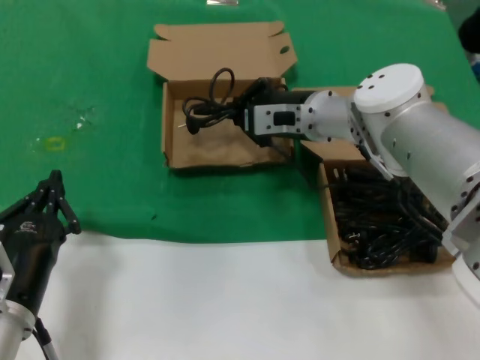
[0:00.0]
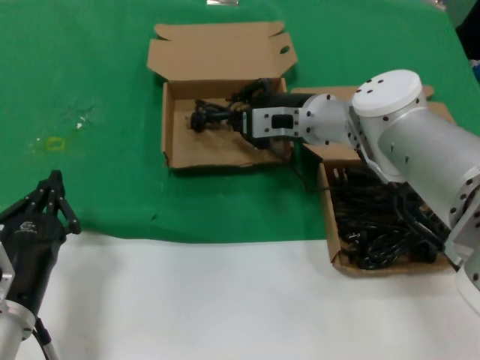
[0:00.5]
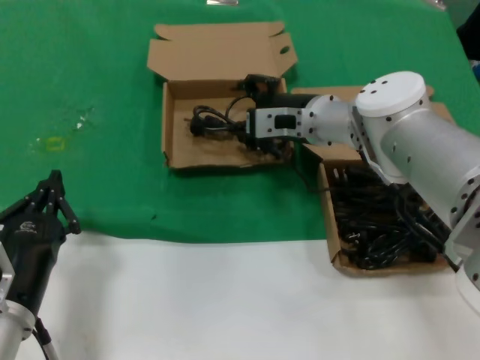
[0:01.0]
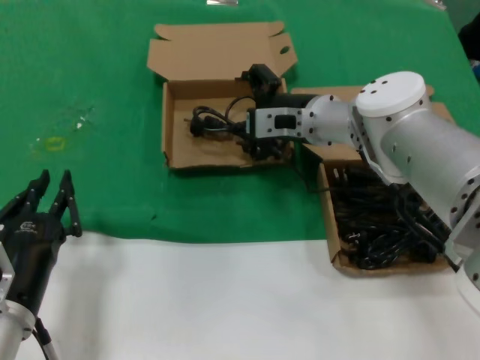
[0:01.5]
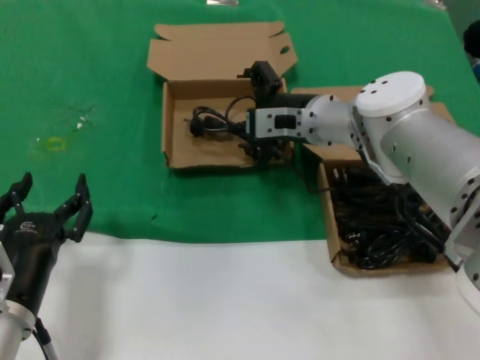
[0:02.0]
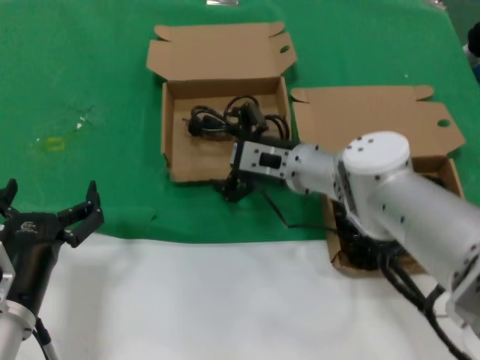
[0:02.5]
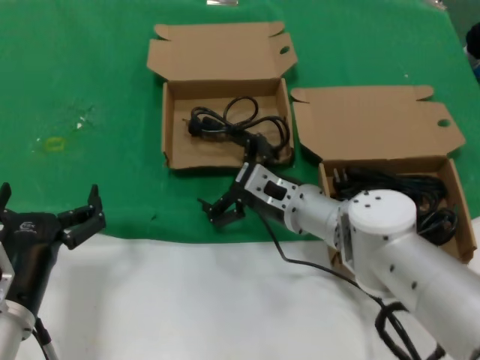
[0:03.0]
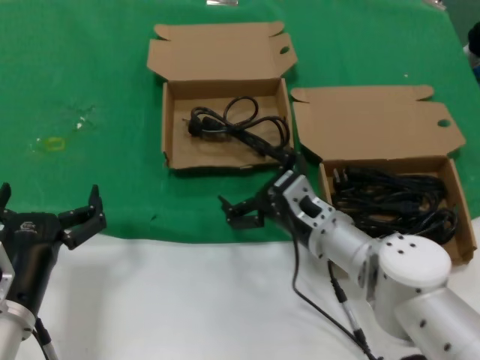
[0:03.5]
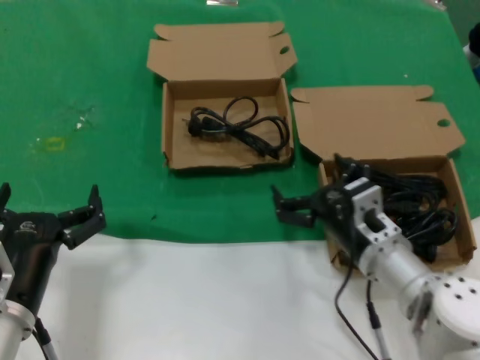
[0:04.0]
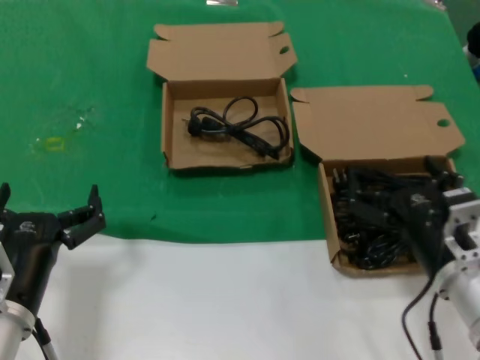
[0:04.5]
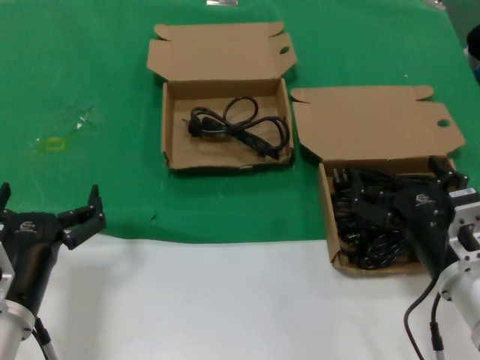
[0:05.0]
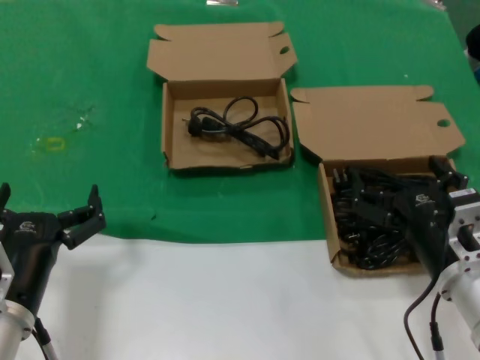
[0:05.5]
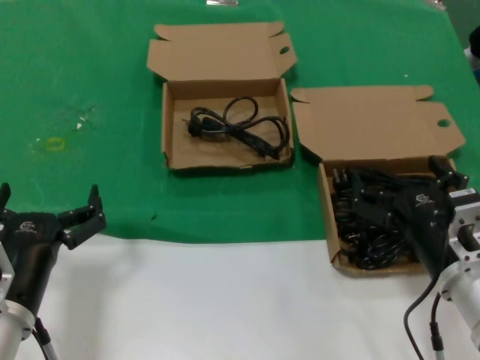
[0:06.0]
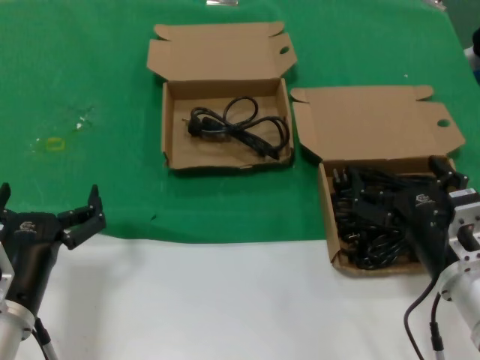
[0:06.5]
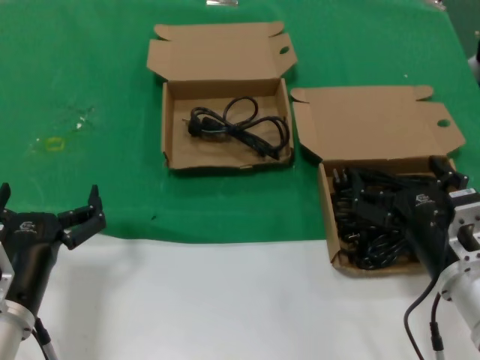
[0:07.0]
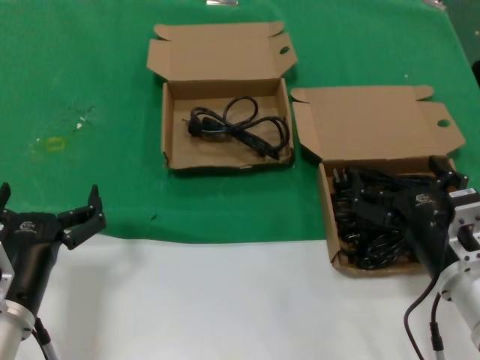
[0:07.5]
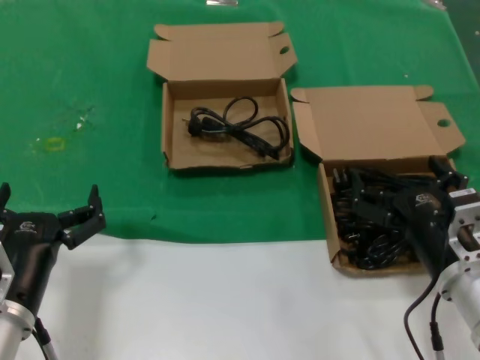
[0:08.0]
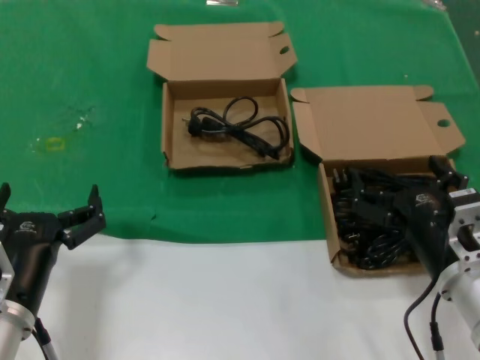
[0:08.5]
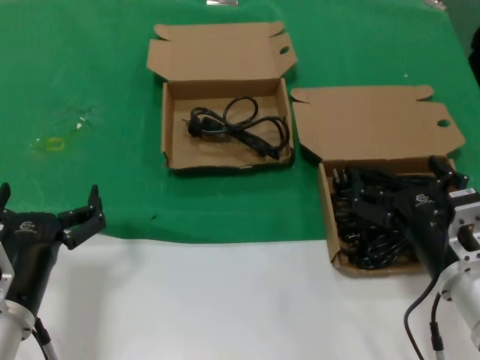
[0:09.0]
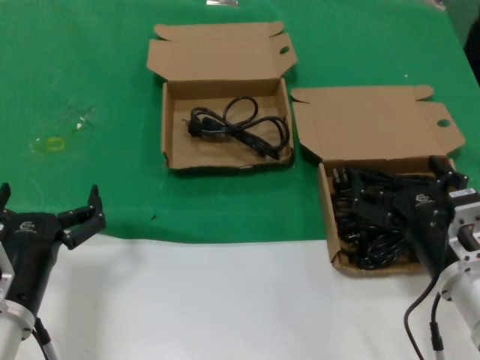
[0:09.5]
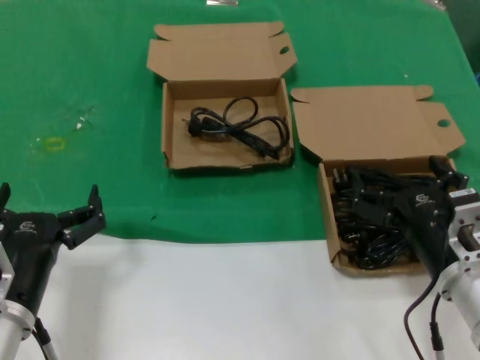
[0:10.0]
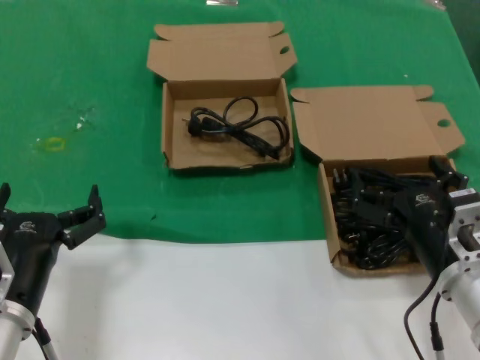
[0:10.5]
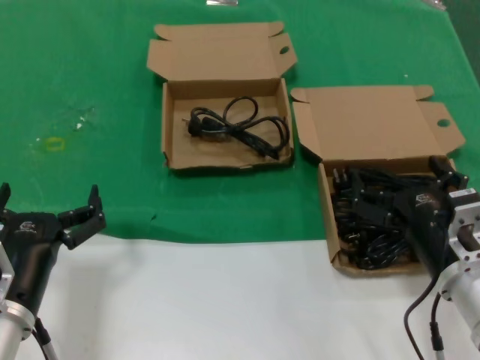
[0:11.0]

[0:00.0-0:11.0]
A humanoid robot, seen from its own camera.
Task of the whole recording: take the parts from the box containing them and put them into an empty box.
0:00.0 to 0:02.0: Neither hand changes place.
0:02.0 to 0:03.5: The right hand travels downward and backward by some 20 cm.
0:03.5 to 0:05.5: The right hand moves backward and to the right, approximately 15 cm.
0:05.5 to 0:11.0: Neither hand changes place.

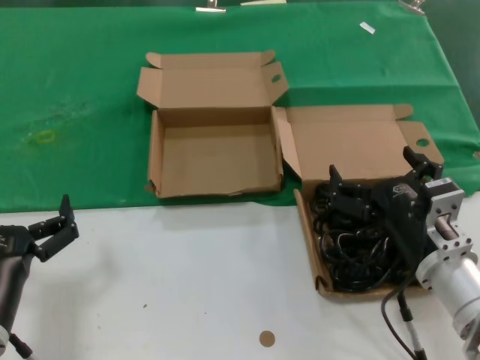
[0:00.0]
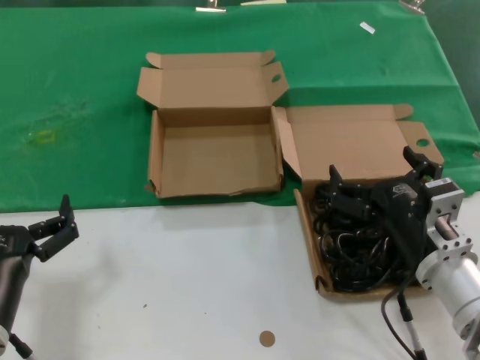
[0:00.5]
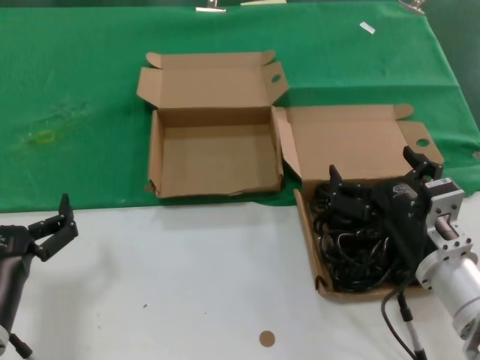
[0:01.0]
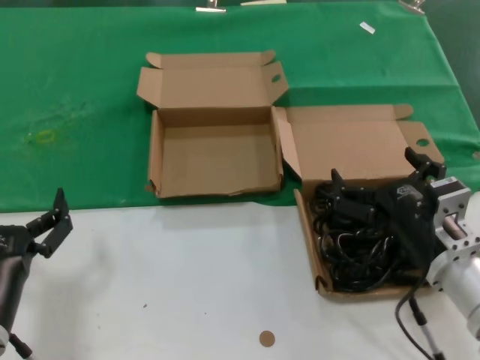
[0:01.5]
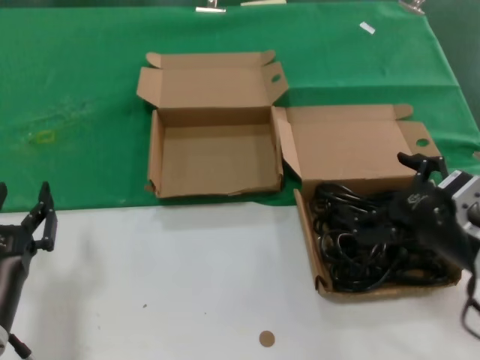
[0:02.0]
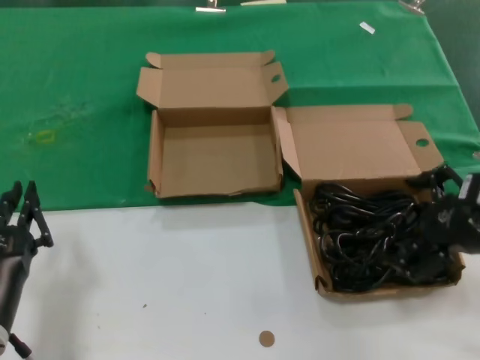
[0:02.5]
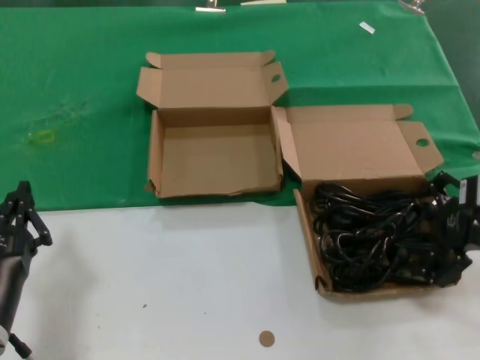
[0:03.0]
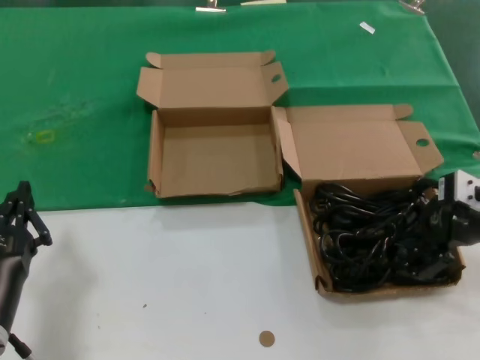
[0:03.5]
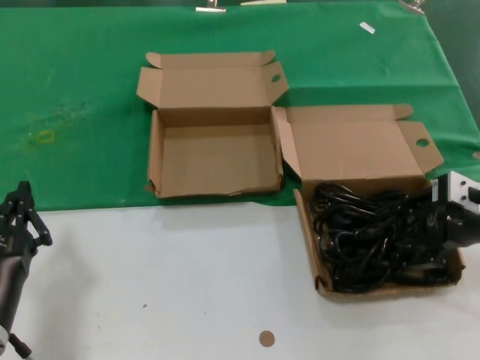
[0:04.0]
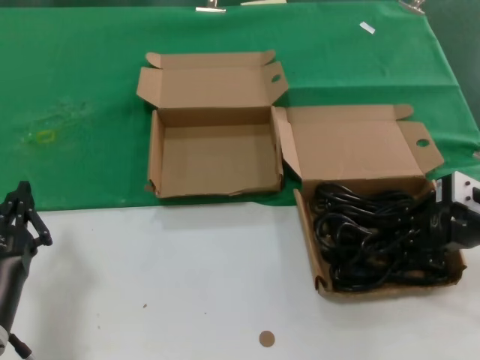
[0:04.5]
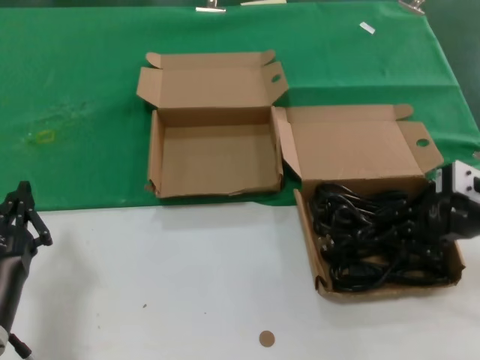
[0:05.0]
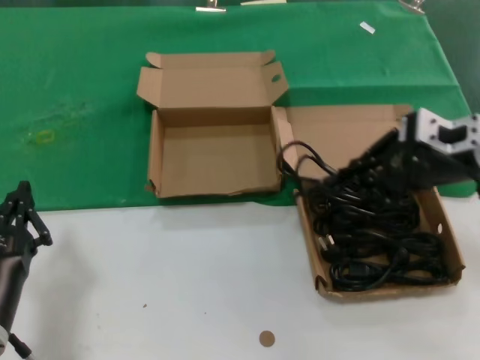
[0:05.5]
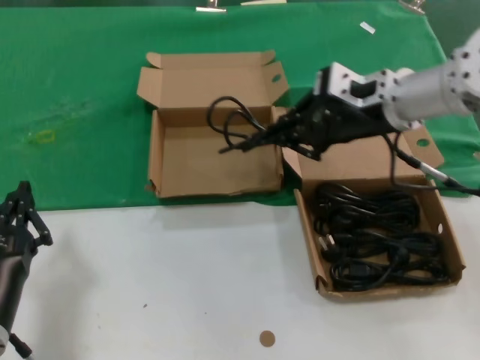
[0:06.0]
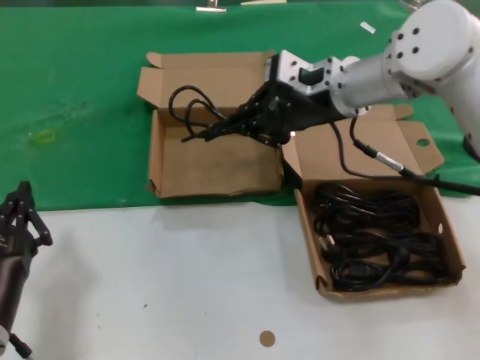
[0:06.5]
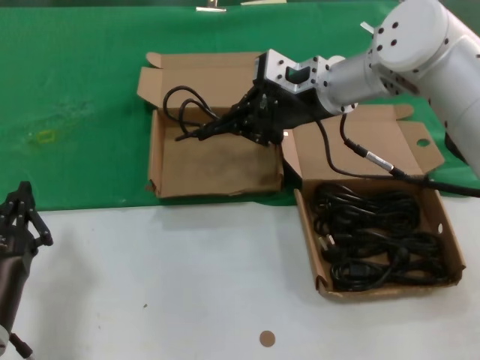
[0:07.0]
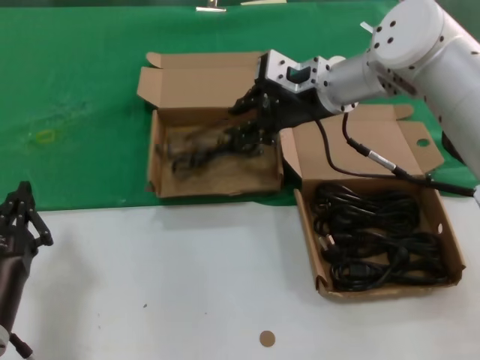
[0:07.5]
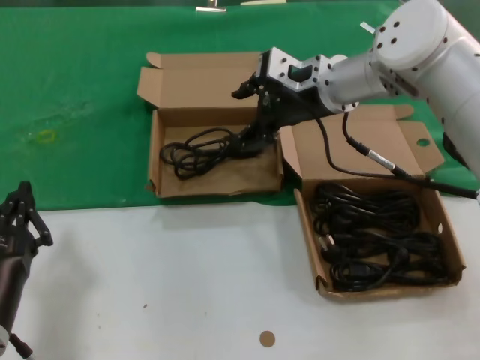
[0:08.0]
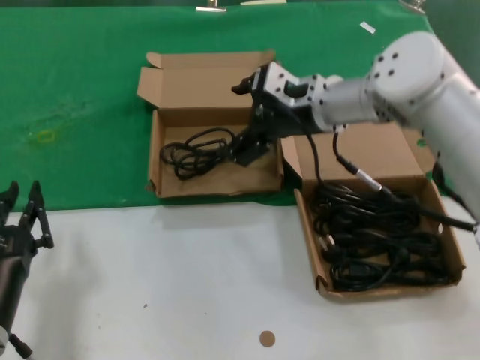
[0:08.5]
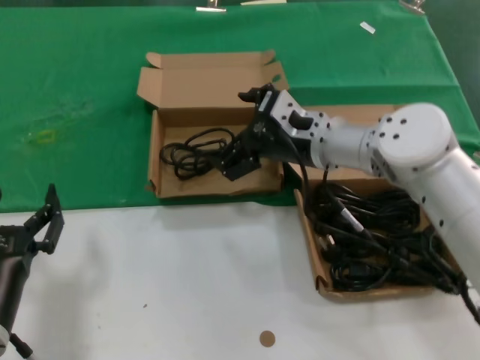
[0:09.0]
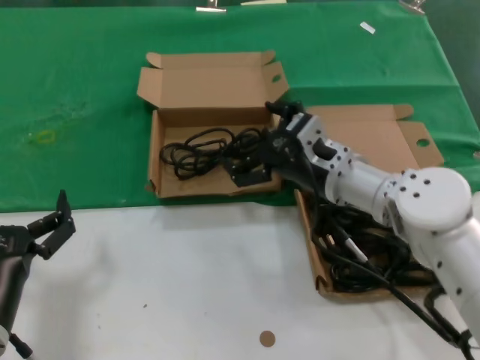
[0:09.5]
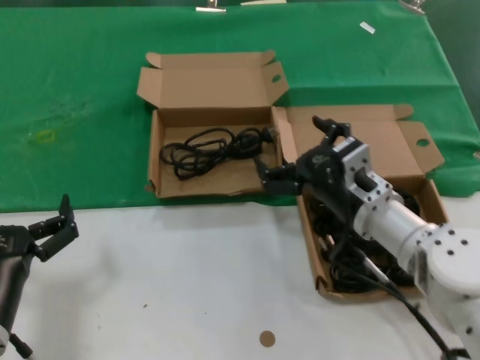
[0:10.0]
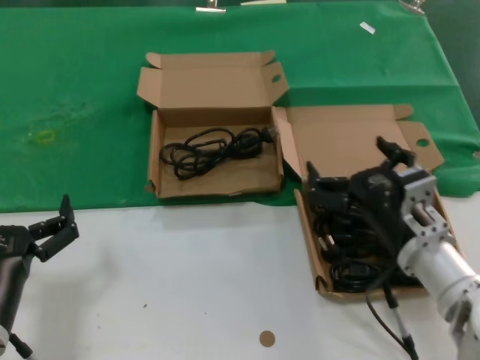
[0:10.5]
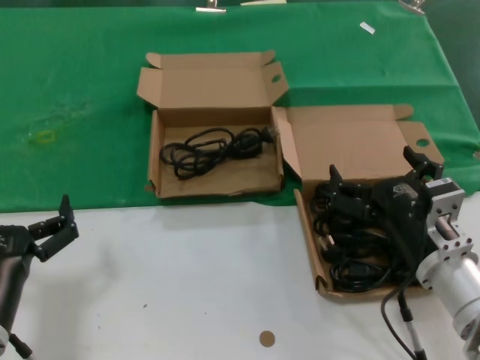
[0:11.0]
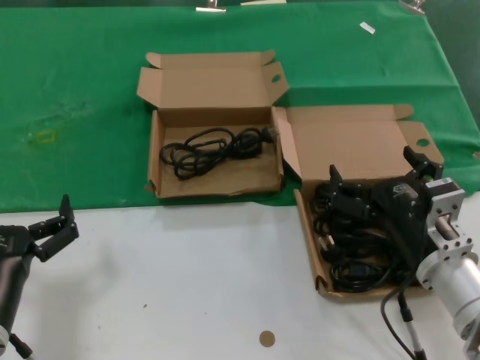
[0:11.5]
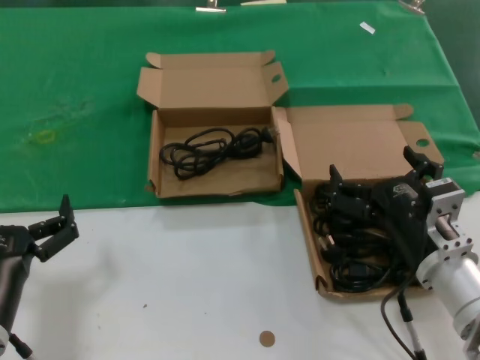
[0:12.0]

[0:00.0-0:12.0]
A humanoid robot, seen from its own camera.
Task of the whole recording: take the parts from the box containing them and put them into an empty box.
Step, 0:00.0 to 0:04.5: Grasp the data cable.
Step, 0:05.0 to 0:07.5: Place the data cable in the another box.
0:00.0 to 0:02.0: The right hand heads upward and to the right, covering approximately 5 cm.
0:02.0 to 0:04.0: The right hand travels forward, to the right and upward by roughly 15 cm.
0:04.0 to 0:06.0: The right hand moves to the left, forward and upward, some 20 cm.
0:06.0 to 0:08.0: The right hand shifts approximately 10 cm forward and to the left.
0:08.0 to 0:10.0: The right hand goes about 20 cm downward and backward.
0:10.0 to 0:12.0: The right hand goes some 10 cm backward.

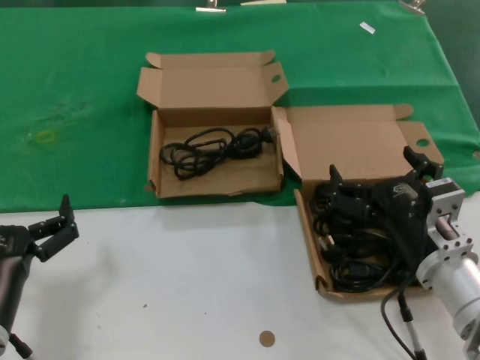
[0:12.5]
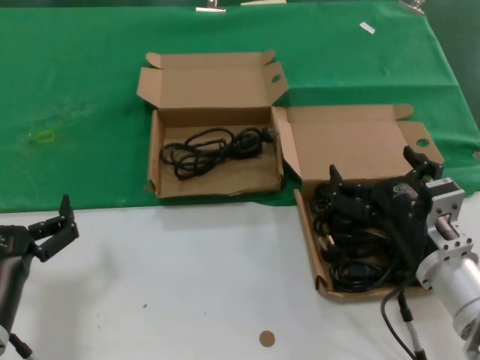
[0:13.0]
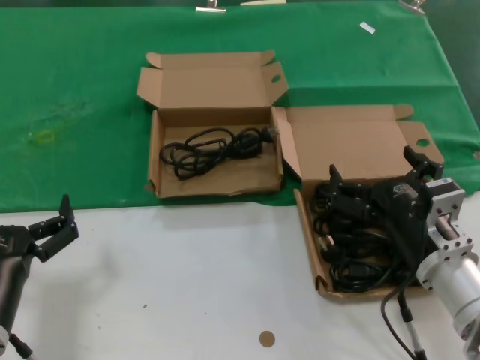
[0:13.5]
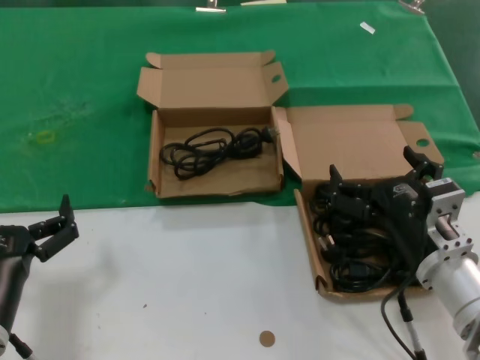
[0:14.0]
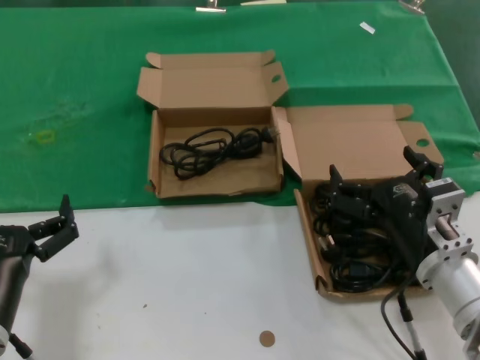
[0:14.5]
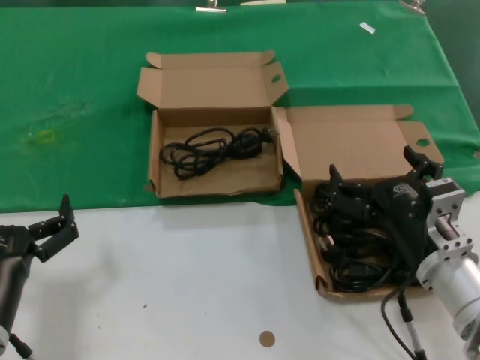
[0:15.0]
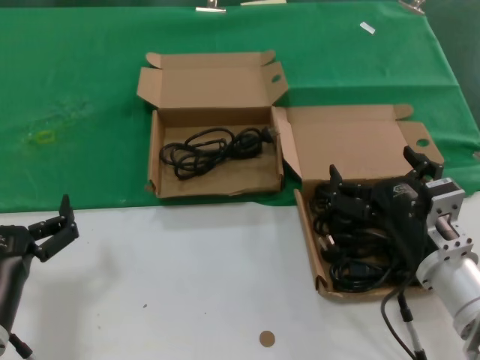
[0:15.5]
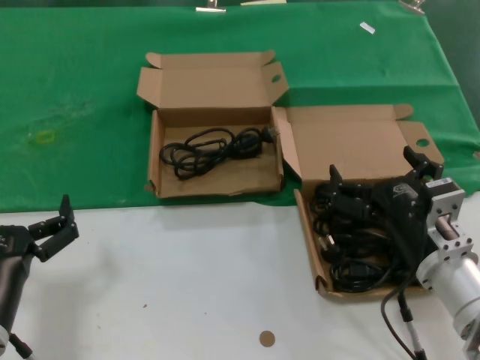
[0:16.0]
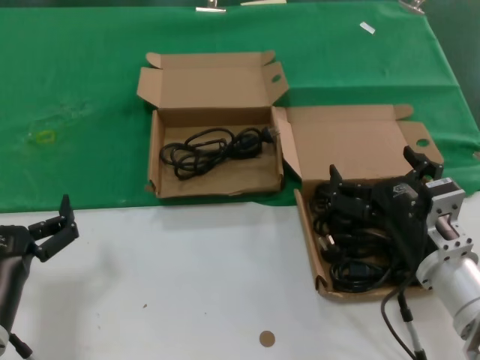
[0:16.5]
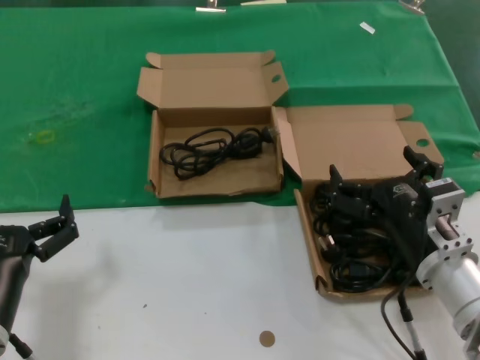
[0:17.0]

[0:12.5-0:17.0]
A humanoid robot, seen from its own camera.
Task of the whole recording: take the parts from the box containing them and put them into an empty box.
0:12.5 to 0:17.0: The two hands keep their place.
